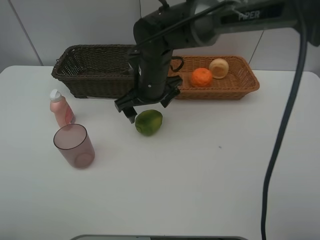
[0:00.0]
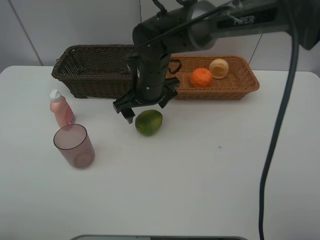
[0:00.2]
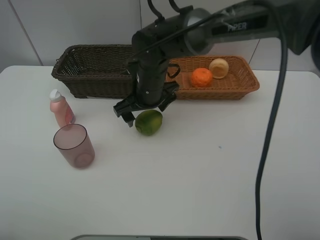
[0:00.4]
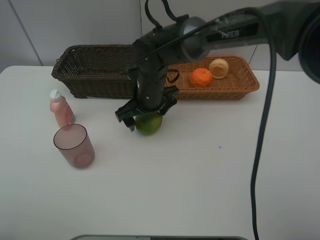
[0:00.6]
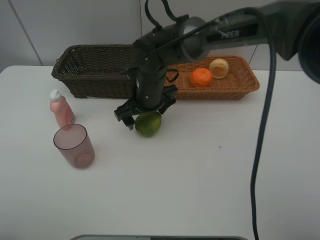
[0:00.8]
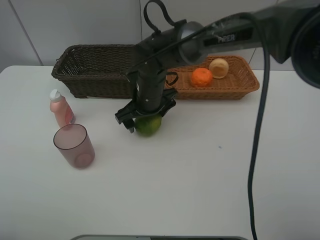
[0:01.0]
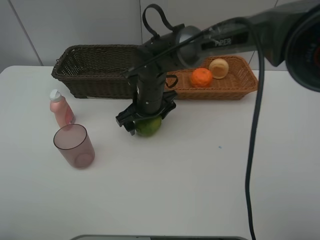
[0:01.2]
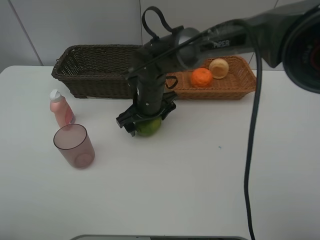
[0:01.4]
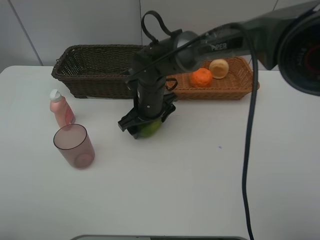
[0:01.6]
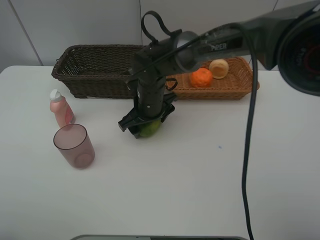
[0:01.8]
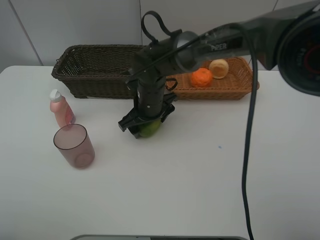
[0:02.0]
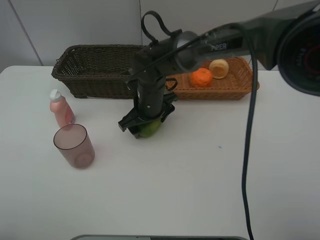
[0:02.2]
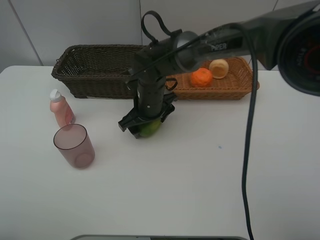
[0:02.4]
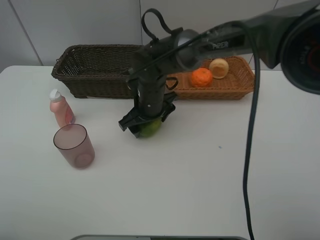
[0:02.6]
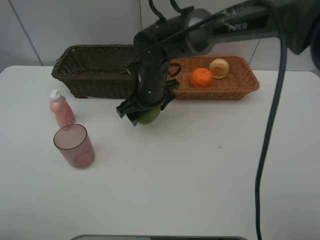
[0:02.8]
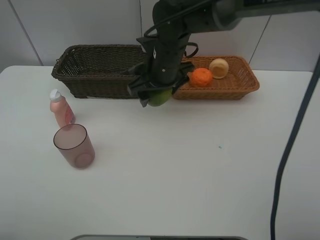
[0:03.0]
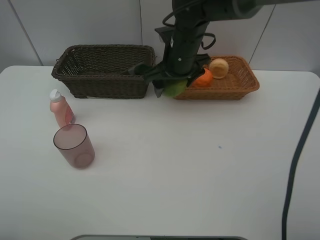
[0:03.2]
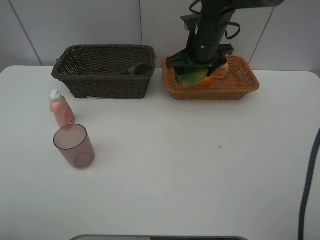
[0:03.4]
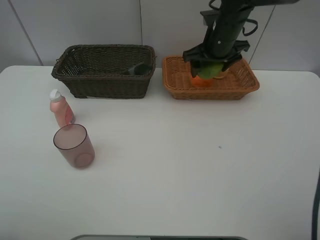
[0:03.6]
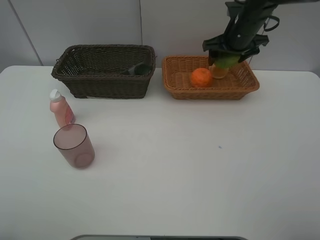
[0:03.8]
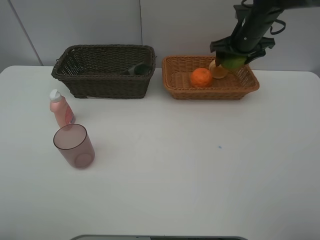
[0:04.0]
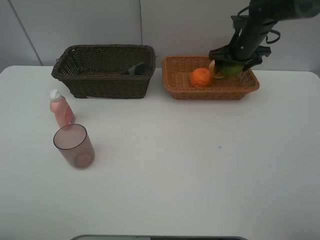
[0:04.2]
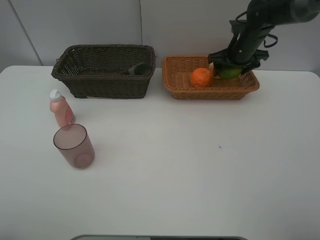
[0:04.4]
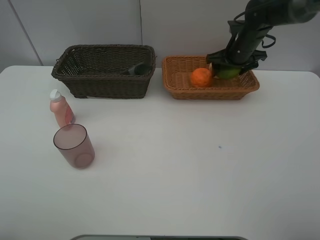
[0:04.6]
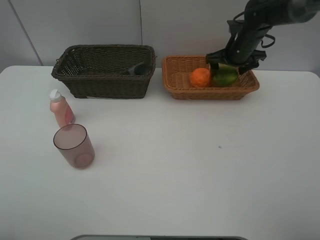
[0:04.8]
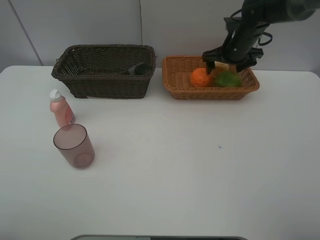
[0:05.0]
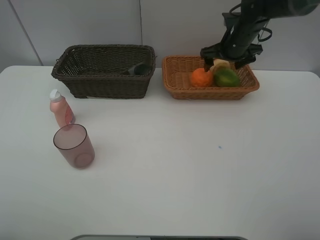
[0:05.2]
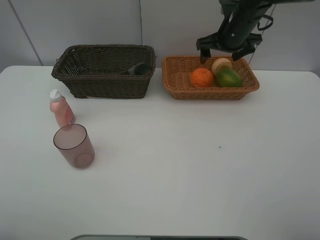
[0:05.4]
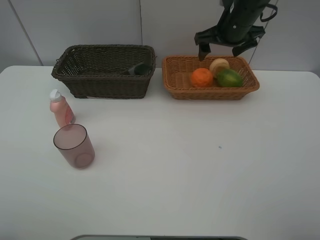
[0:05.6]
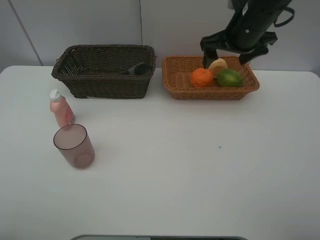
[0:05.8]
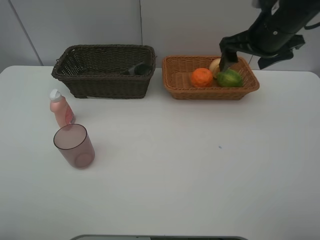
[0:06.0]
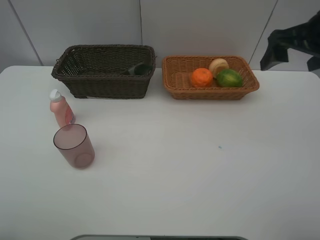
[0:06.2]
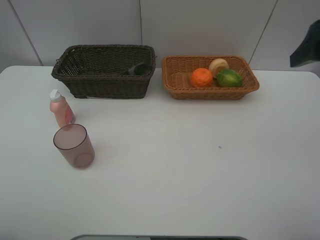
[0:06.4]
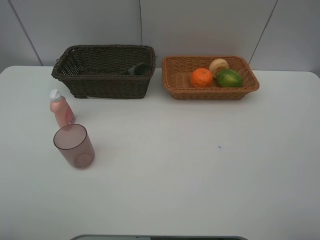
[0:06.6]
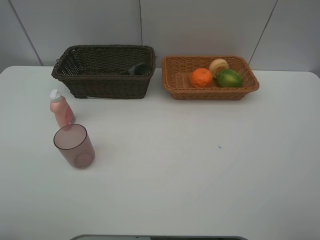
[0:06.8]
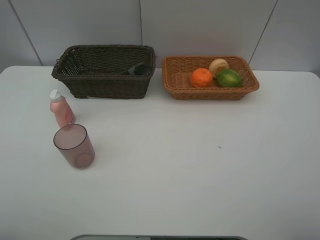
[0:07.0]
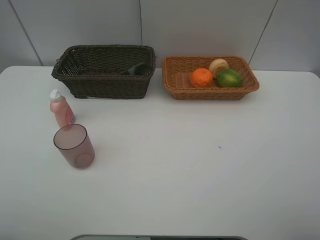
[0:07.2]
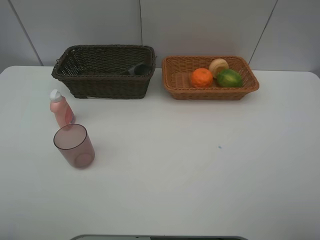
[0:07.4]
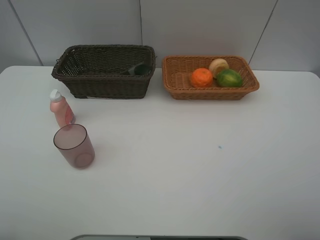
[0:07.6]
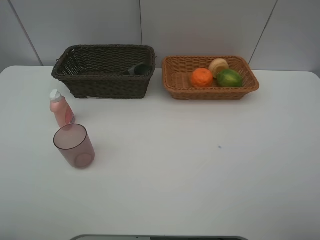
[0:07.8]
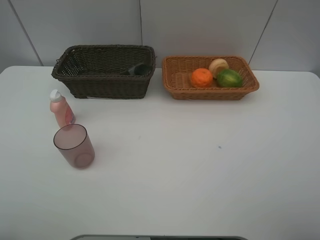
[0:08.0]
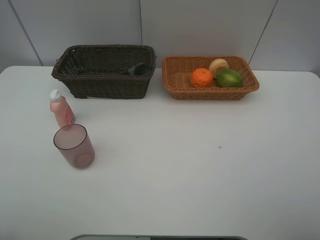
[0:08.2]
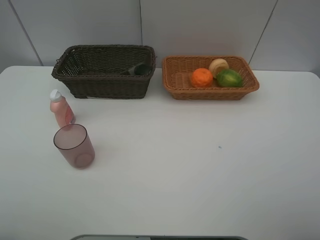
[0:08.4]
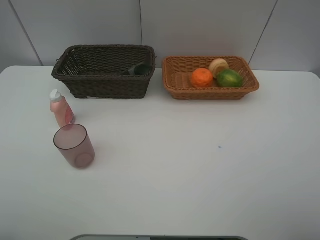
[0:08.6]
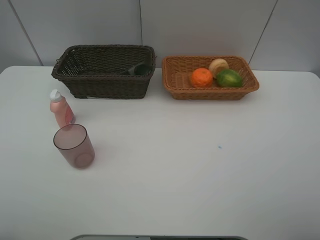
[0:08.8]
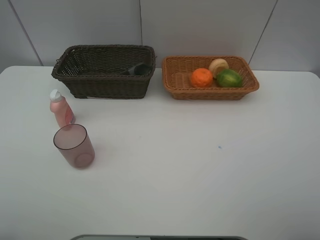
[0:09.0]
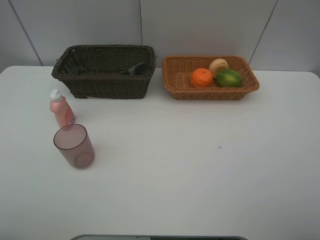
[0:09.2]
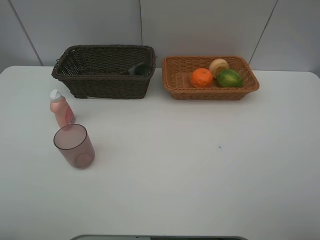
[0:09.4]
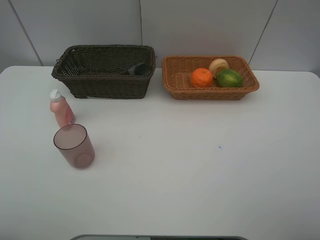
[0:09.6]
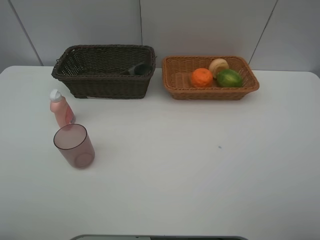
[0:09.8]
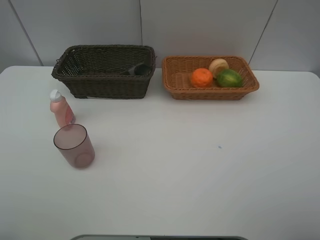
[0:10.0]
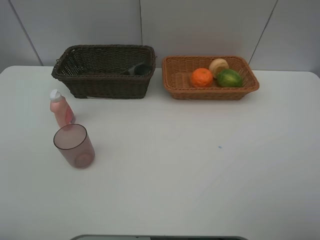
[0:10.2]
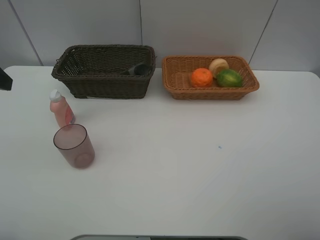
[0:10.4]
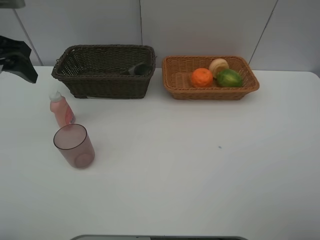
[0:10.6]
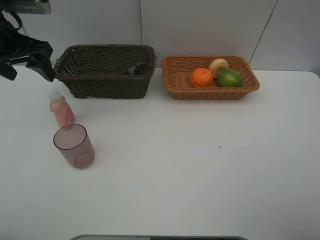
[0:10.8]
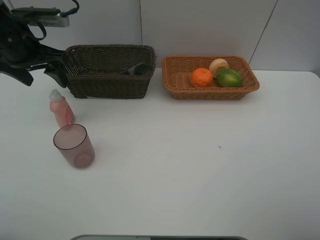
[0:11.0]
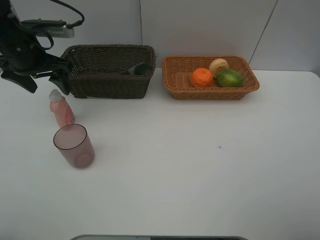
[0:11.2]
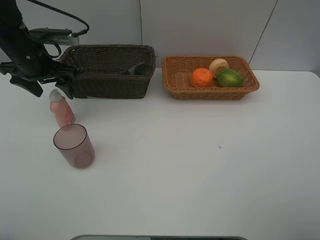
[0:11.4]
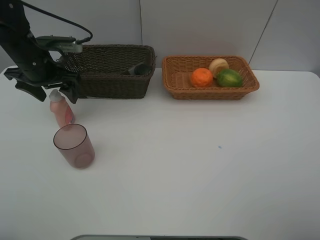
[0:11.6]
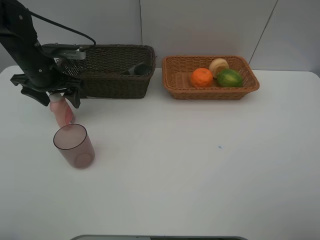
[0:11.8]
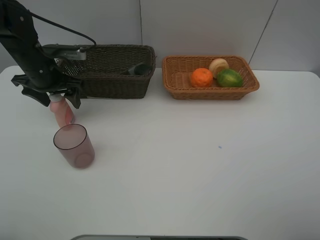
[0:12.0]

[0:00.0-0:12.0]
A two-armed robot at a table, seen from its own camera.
Task of the whole recording: place multiple objects separately in different baskets.
0:00.0 to 0:01.6: The right gripper moves downward, approximately 5 cm.
0:01.6 to 0:03.0: The right gripper goes approximately 10 cm upward.
0:03.0 to 0:04.4: The right gripper heads to the right and forward, covering approximately 25 cm.
0:04.4 to 0:06.0: The right gripper shifts about 15 cm backward and upward.
0:06.0 to 0:07.6: The right gripper travels backward by roughly 35 cm.
0:10.4 to 0:12.0: The left gripper shifts roughly 20 cm forward and downward.

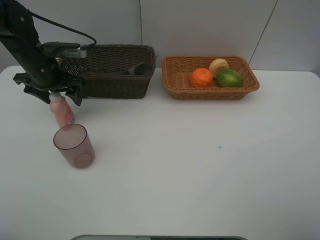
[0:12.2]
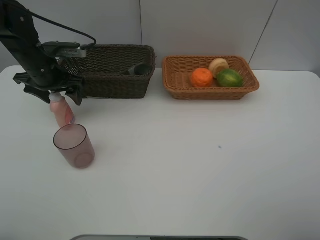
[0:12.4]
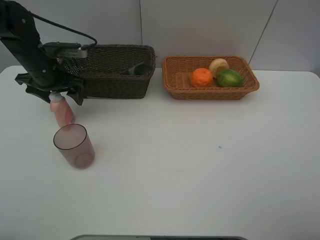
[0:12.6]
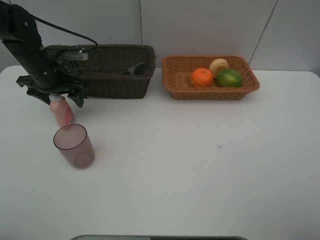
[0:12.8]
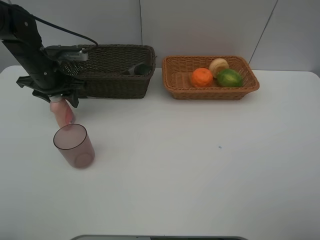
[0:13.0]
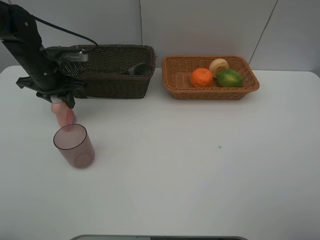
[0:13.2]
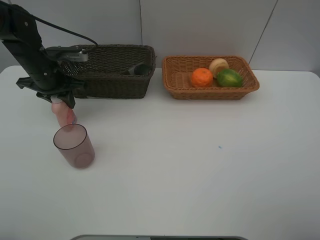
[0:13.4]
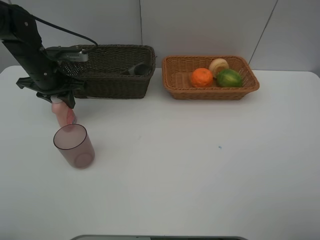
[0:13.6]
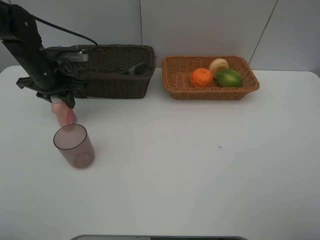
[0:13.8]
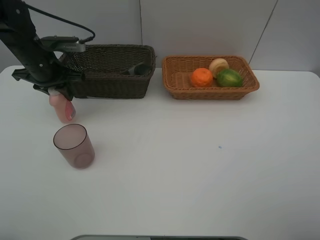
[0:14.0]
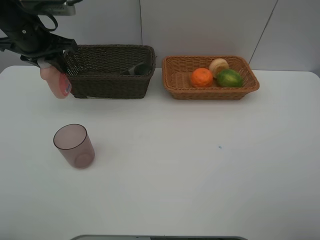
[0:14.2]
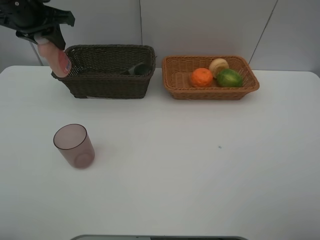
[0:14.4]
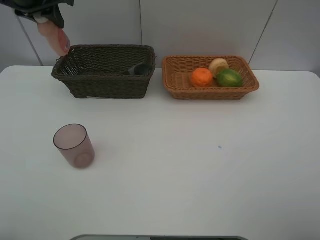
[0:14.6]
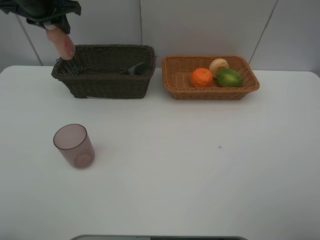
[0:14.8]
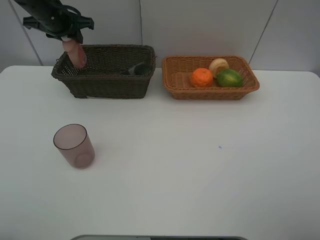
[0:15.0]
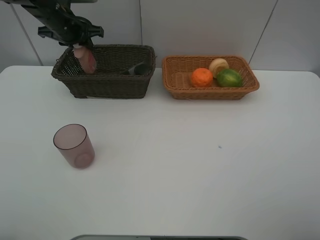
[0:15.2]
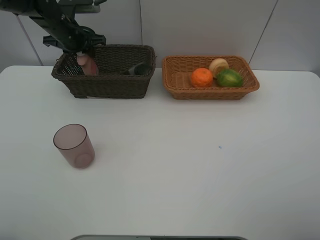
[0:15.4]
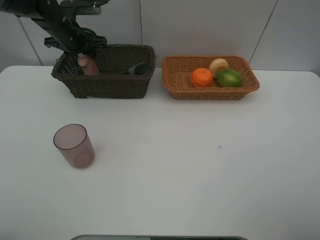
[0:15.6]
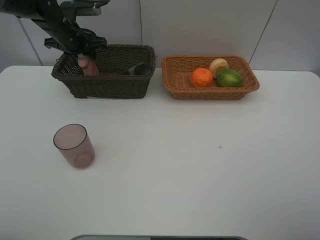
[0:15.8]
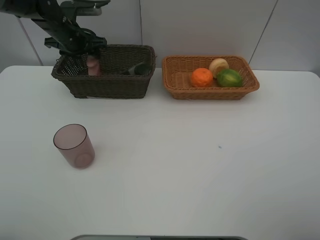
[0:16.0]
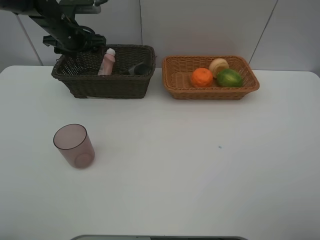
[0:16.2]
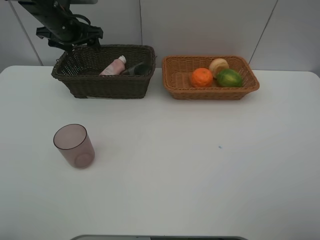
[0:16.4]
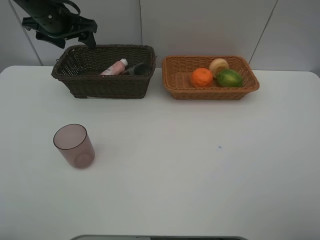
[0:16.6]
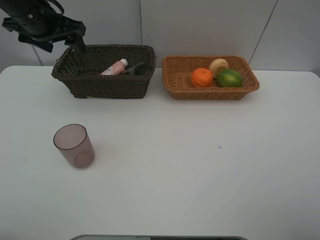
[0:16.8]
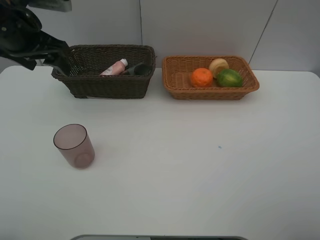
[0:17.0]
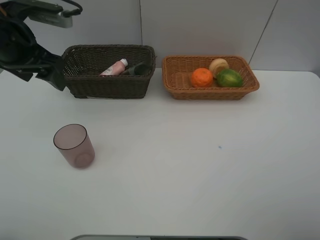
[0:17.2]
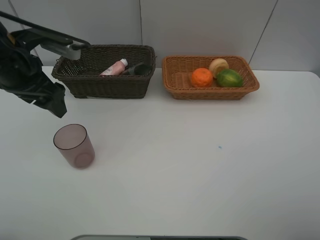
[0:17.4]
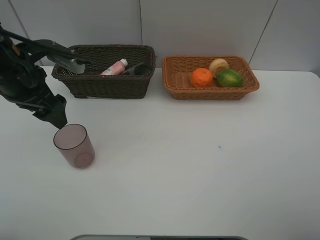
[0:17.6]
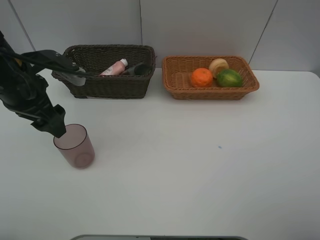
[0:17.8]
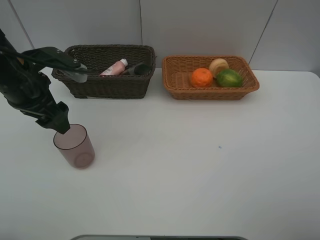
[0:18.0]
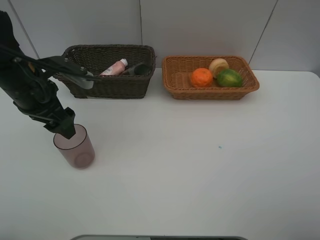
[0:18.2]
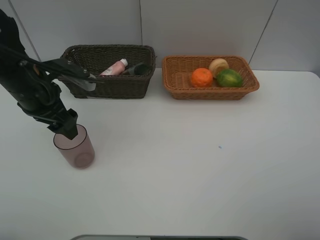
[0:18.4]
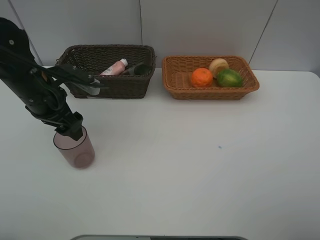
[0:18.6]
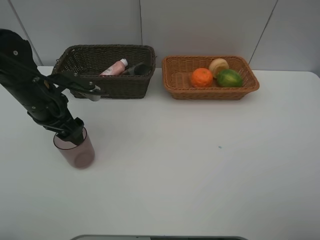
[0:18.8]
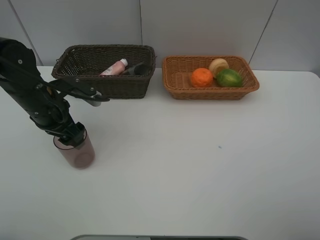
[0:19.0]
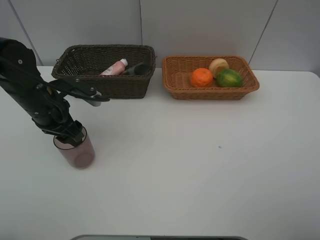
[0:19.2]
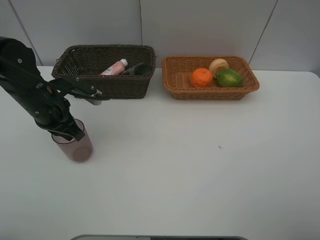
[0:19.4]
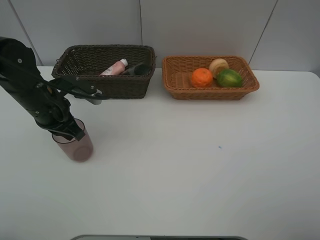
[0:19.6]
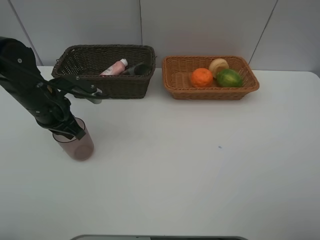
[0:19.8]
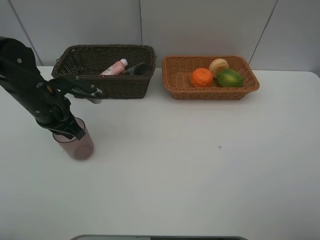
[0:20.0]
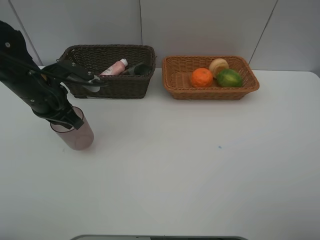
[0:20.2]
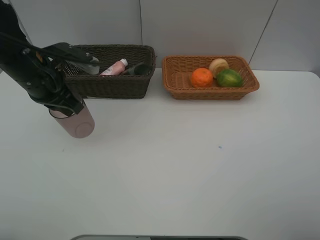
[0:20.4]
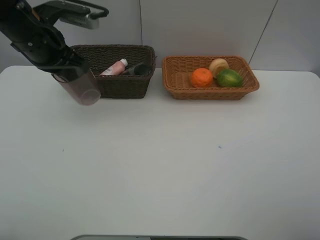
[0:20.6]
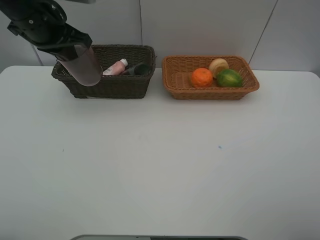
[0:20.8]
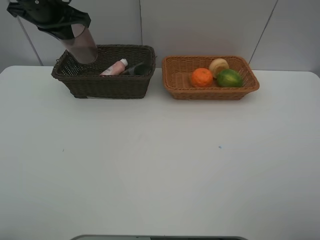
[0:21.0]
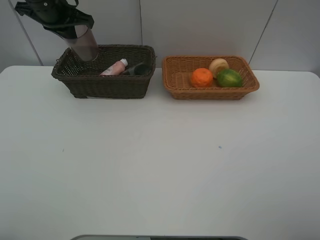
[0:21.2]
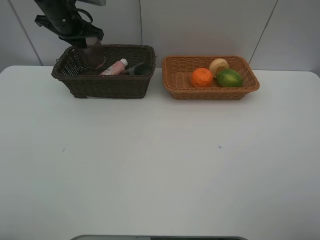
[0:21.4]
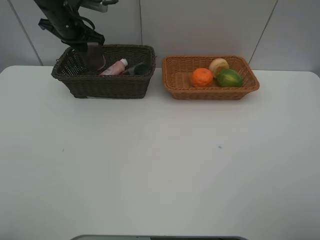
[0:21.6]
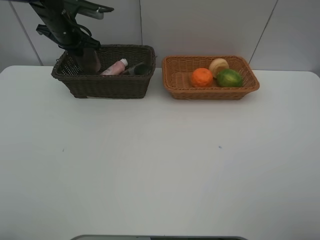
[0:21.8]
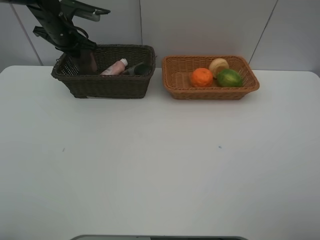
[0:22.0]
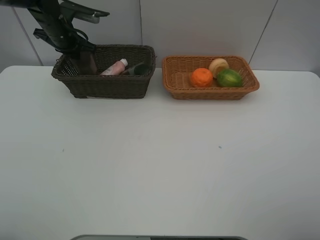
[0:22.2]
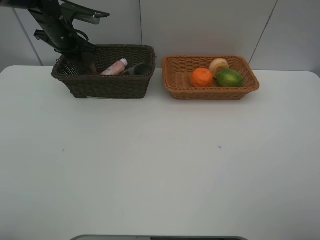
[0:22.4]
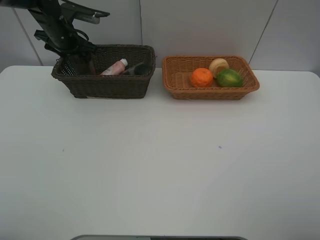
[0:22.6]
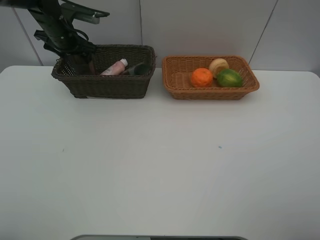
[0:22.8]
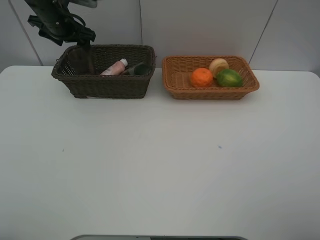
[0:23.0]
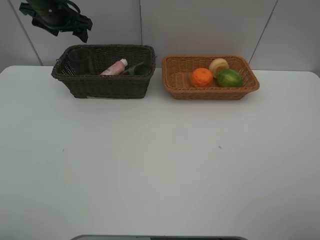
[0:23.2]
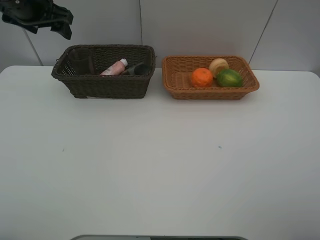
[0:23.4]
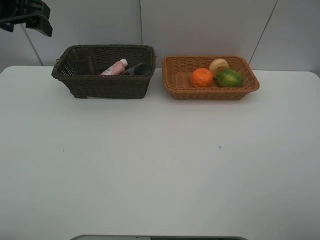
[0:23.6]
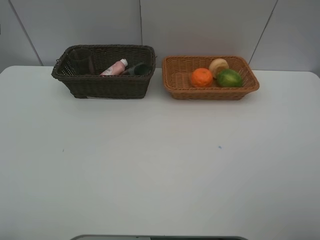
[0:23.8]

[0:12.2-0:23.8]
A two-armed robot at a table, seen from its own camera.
Task of the whole recording: place multiple objects separately in different baskets.
0:12.2 to 0:13.6: The left gripper closes up.
0:13.6 to 0:15.0: The left gripper goes some 10 cm forward and upward.
0:15.0 to 0:16.6: The left gripper shifts by about 5 cm, and opens up.
0:16.6 to 0:18.0: The left gripper heads backward, covering roughly 15 cm.
0:18.0 to 0:19.4: The left gripper heads downward, covering about 5 cm, and closes.
0:19.4 to 0:21.0: The left gripper goes some 20 cm upward and forward.
0:21.0 to 0:22.4: The left gripper is displaced downward and forward by roughly 15 cm, and opens its fingers.
0:22.4 to 0:23.8: The left gripper shifts approximately 30 cm backward and upward, and opens its fingers.
